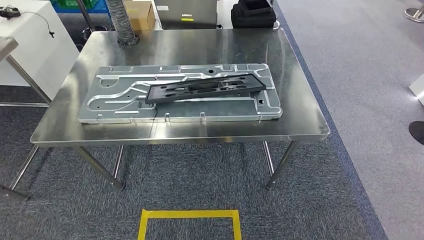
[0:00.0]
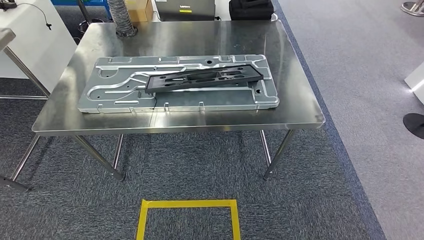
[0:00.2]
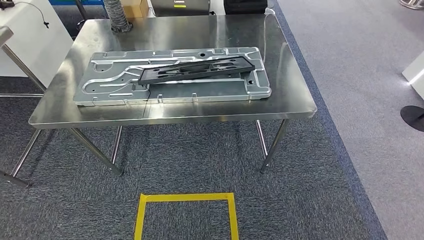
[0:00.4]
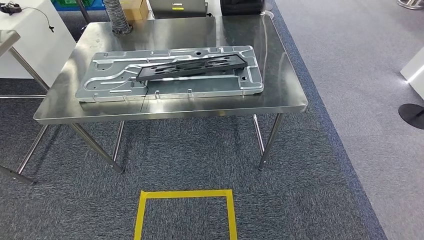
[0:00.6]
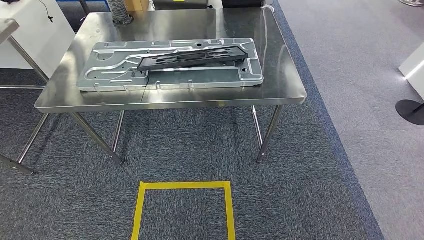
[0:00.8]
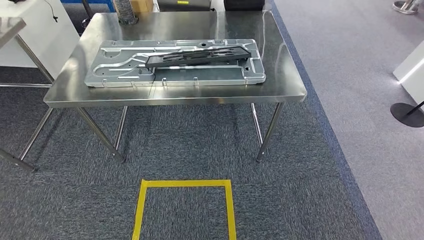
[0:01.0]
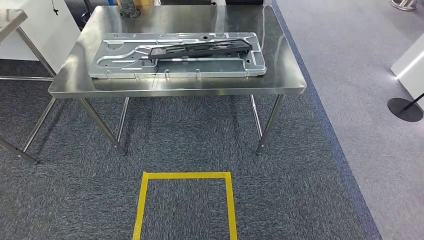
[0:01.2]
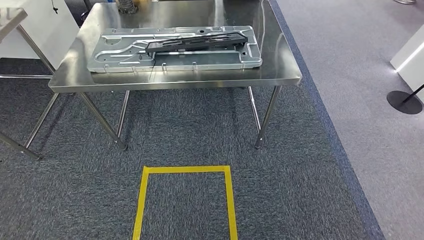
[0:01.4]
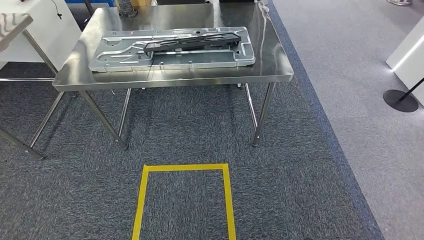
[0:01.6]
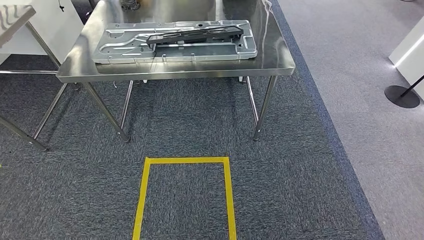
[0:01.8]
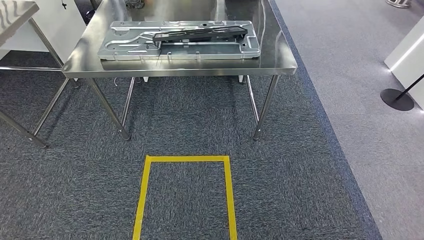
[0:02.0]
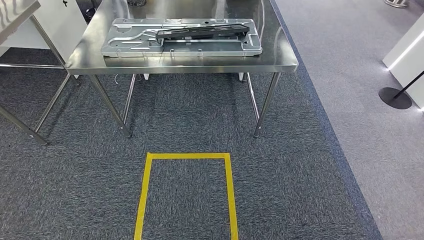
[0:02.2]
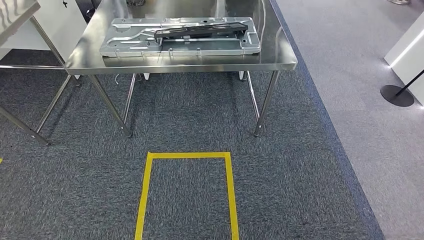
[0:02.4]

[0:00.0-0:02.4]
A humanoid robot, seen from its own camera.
Step, 0:00.0 to 0:02.4: Return to the initial position at the shelf.
